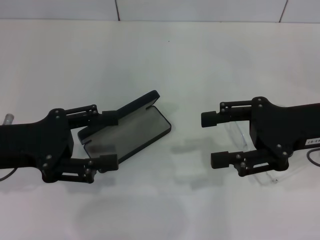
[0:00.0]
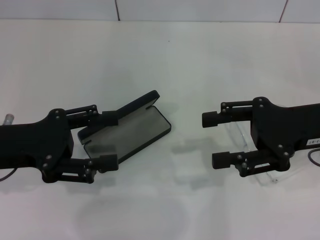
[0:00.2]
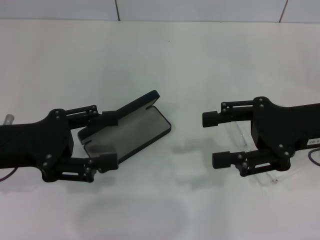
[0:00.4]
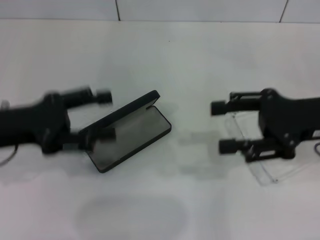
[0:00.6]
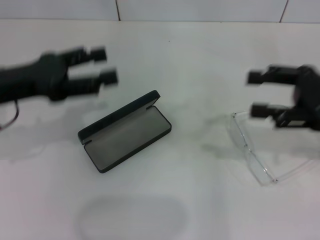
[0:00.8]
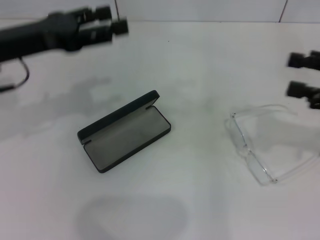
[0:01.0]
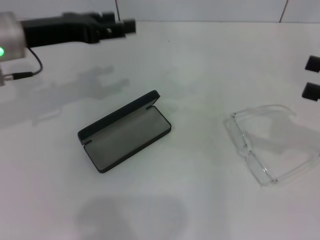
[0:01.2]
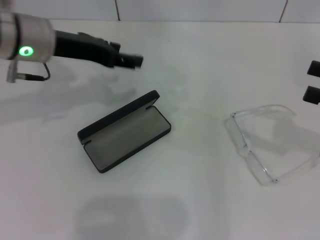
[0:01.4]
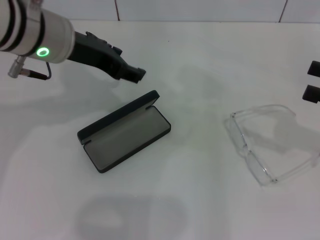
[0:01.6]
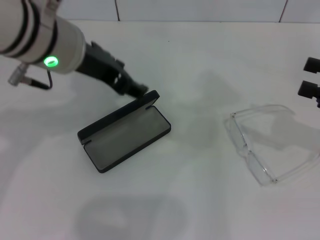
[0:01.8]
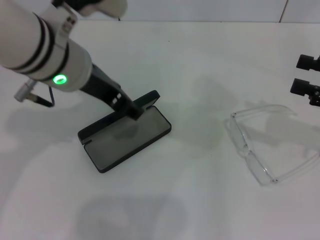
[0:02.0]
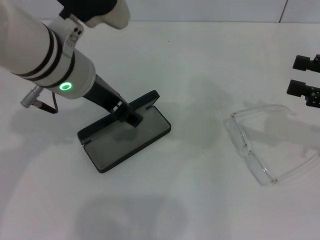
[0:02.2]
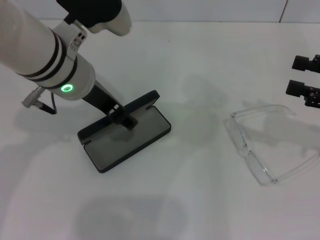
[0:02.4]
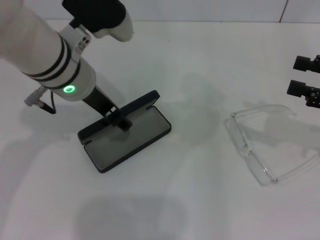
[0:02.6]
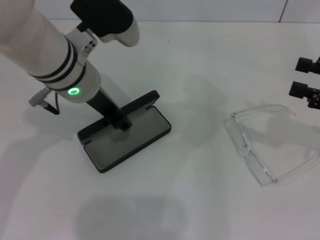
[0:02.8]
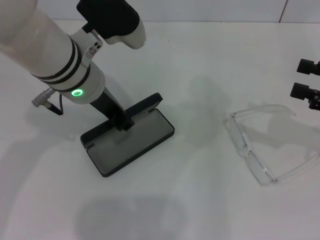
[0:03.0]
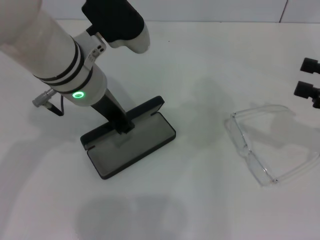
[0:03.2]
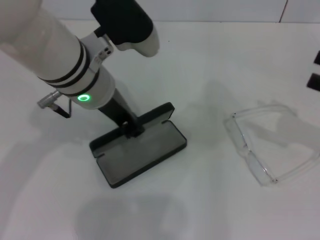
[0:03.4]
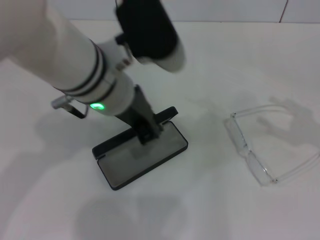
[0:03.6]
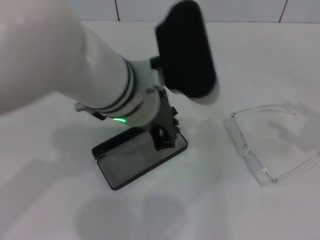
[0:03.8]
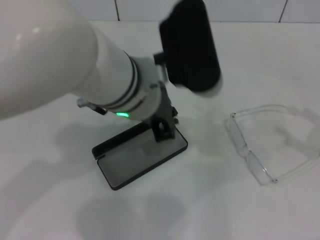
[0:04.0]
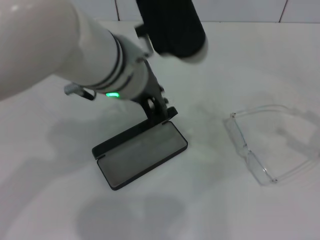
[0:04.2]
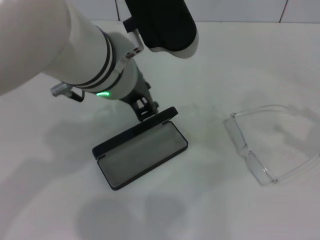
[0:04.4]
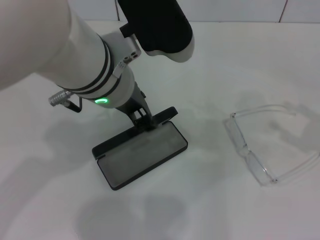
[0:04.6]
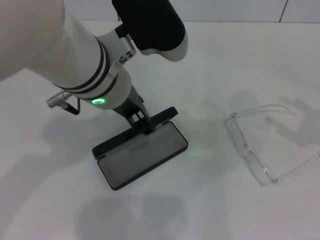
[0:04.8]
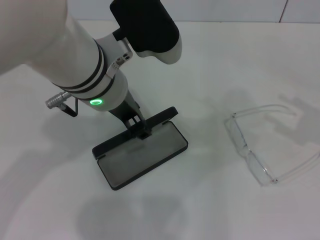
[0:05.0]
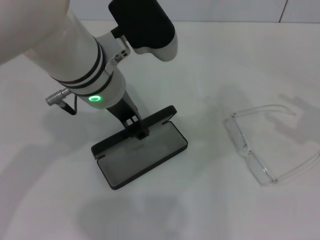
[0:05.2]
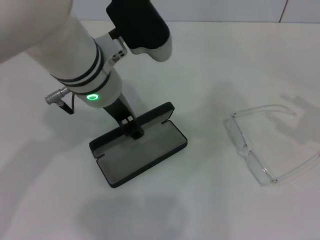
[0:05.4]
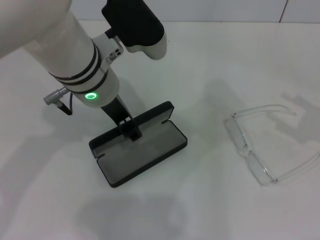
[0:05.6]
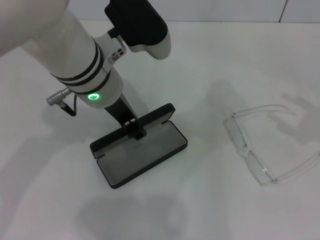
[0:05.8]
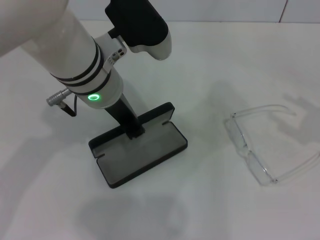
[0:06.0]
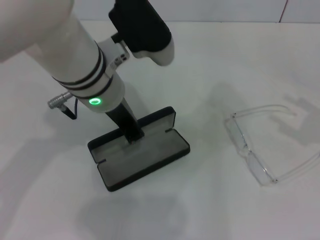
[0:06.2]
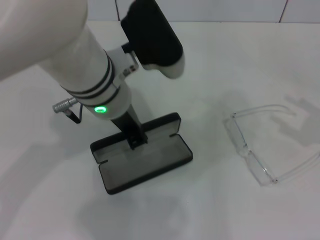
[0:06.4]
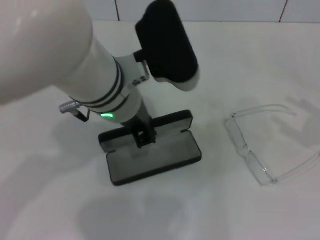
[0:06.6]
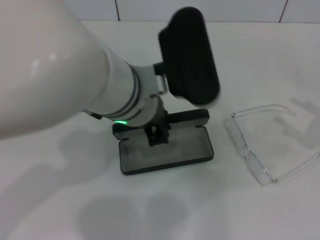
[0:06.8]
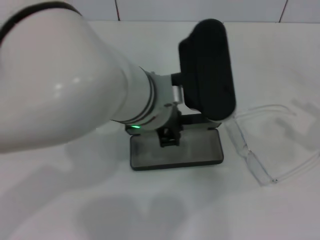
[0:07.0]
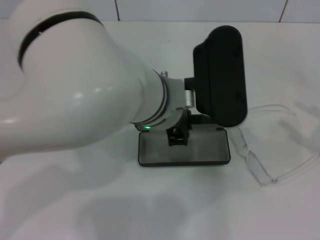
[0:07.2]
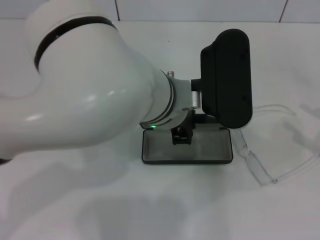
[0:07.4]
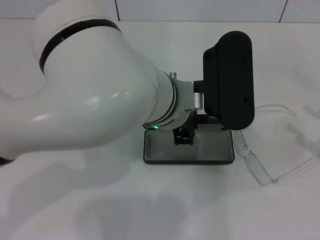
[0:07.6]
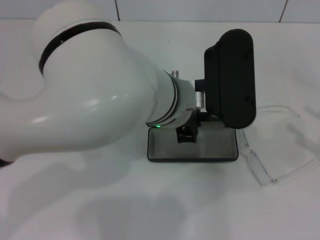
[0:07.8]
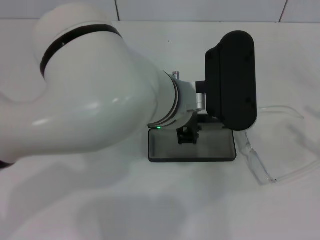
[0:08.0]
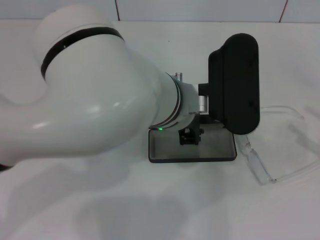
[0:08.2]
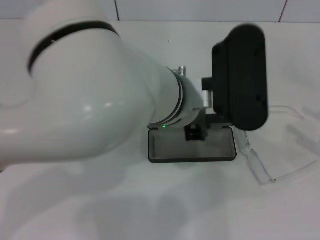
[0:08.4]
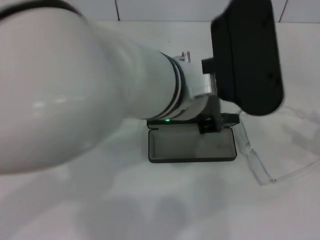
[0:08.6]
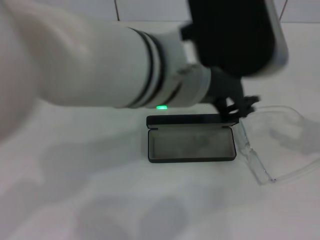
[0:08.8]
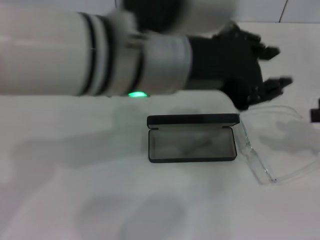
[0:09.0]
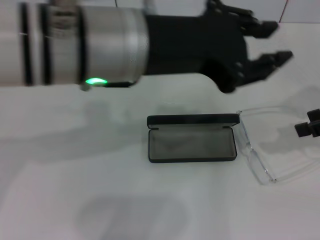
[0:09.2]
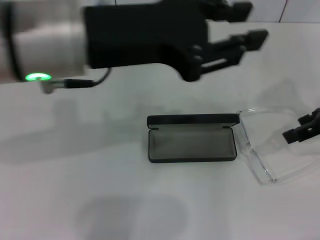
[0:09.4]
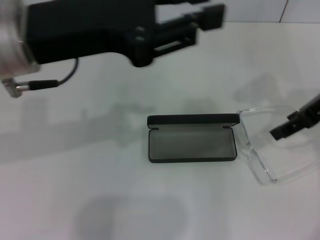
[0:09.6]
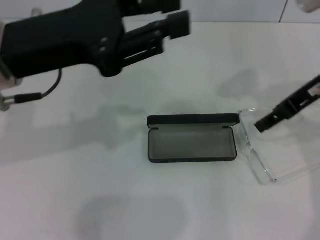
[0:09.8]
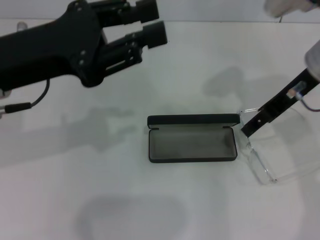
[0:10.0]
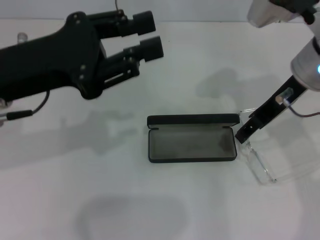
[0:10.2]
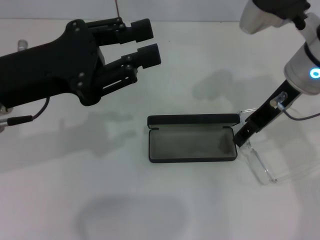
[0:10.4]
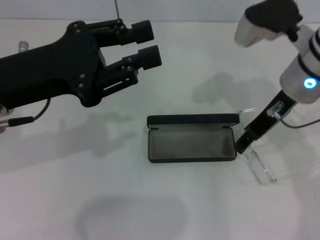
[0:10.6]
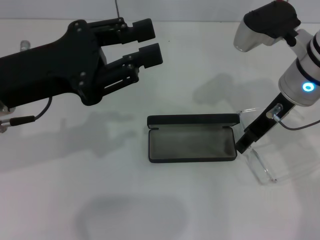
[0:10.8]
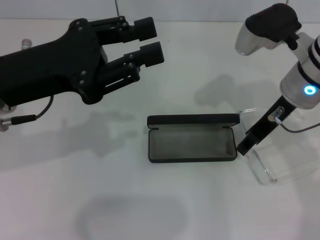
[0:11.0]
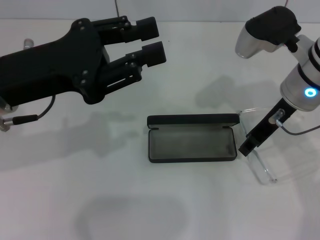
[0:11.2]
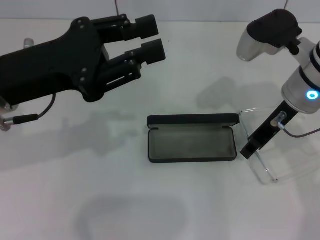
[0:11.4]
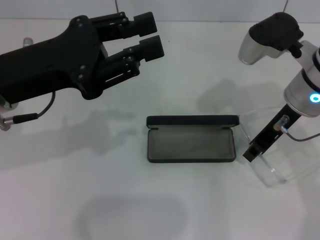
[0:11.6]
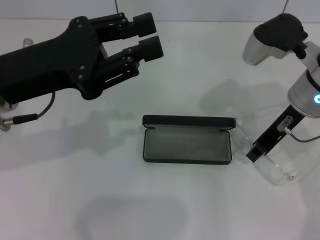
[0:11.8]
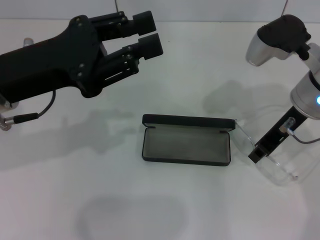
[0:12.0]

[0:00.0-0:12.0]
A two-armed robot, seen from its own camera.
Step, 0:00.0 to 0:02.8: Grab the glasses case with your left hand.
Step, 0:03.0 to 0:08.0: Place the glasses case in the center of the table with your left hand.
0:00.0 to 0:01.6: The right gripper heads to the right, covering some 10 cm, while the left gripper heads to the right, forward and upward, covering roughly 20 cm.
0:01.6 to 0:03.0: The left gripper shifts by some 5 cm.
0:03.0 to 0:04.4: The right gripper travels backward by approximately 5 cm. The left gripper shifts by some 10 cm, and closes up.
0:04.4 to 0:06.0: The left gripper shifts by some 5 cm.
0:06.0 to 0:07.6: The left gripper is displaced to the right by approximately 10 cm.
0:07.6 to 0:09.0: The left gripper is displaced upward by roughly 10 cm, while the right gripper moves forward and upward, approximately 10 cm.
0:09.0 to 0:10.4: The right gripper moves to the left and forward, some 20 cm. Meanwhile the left gripper travels to the left and downward by some 20 cm.
0:10.4 to 0:12.0: The right gripper closes its fingers.

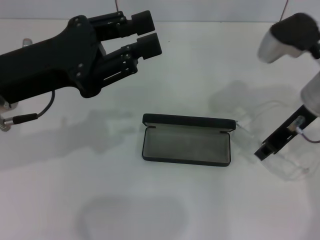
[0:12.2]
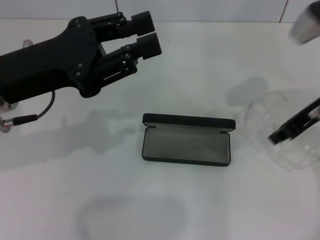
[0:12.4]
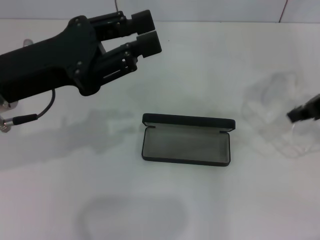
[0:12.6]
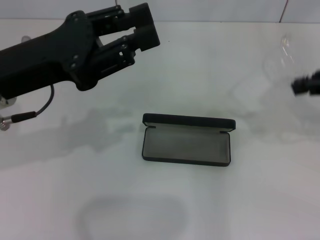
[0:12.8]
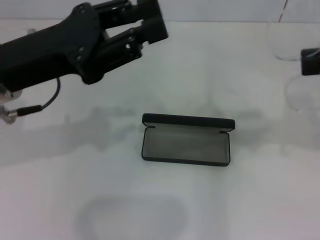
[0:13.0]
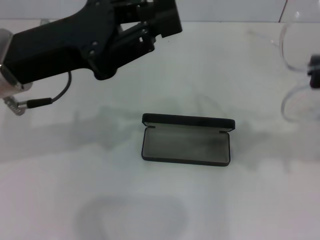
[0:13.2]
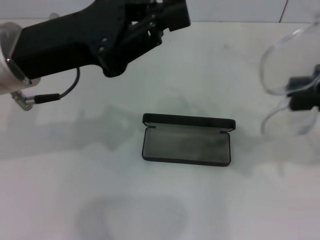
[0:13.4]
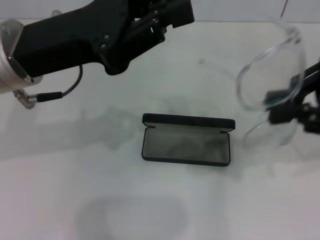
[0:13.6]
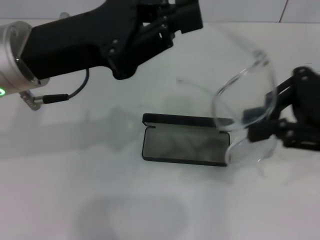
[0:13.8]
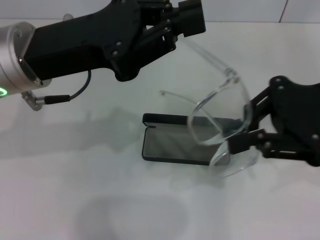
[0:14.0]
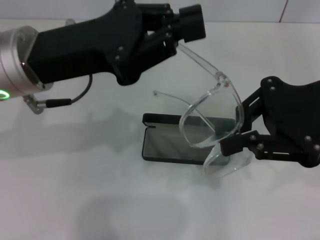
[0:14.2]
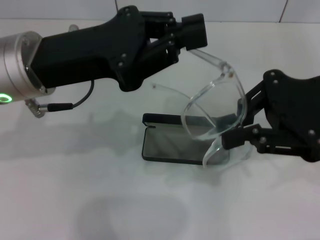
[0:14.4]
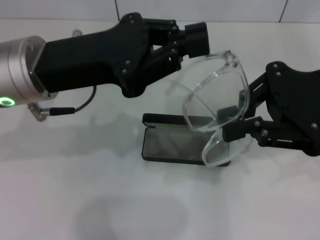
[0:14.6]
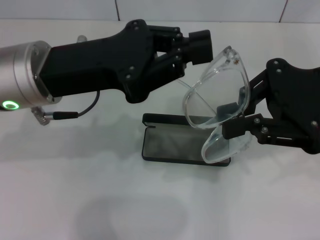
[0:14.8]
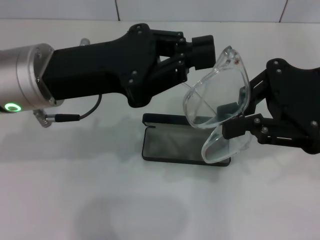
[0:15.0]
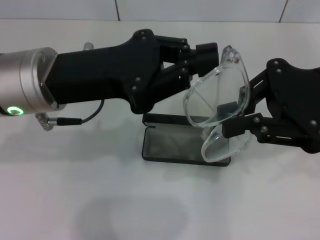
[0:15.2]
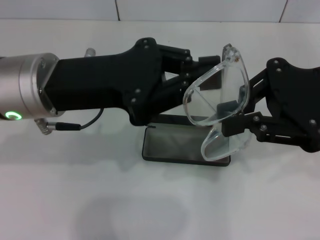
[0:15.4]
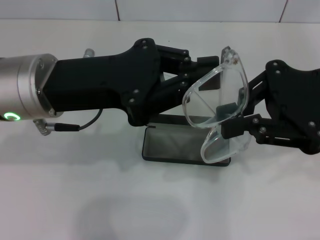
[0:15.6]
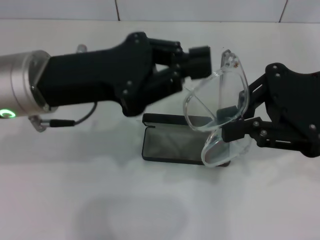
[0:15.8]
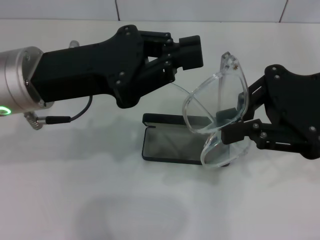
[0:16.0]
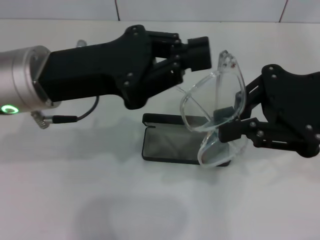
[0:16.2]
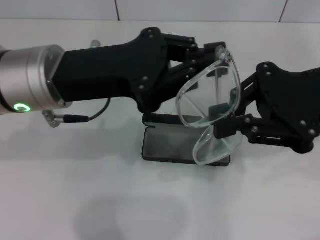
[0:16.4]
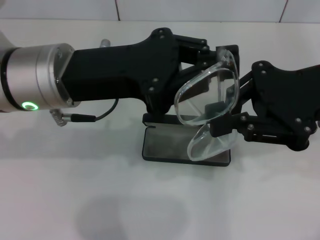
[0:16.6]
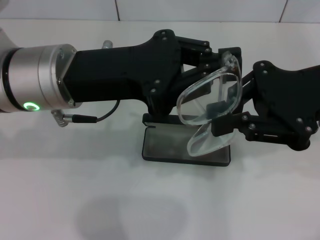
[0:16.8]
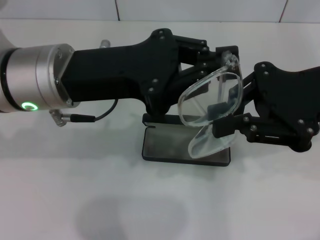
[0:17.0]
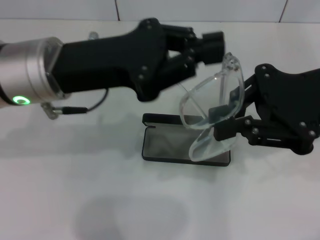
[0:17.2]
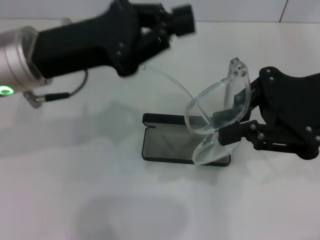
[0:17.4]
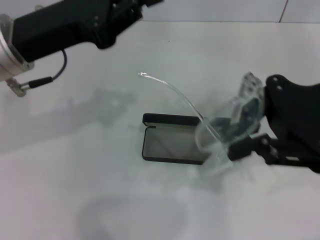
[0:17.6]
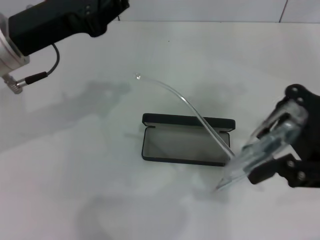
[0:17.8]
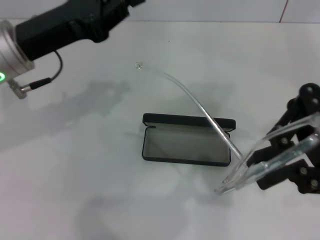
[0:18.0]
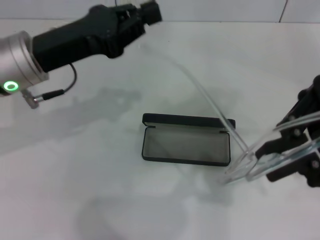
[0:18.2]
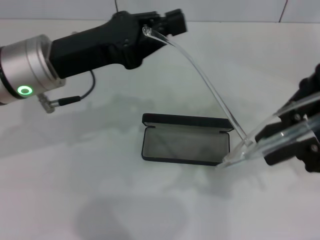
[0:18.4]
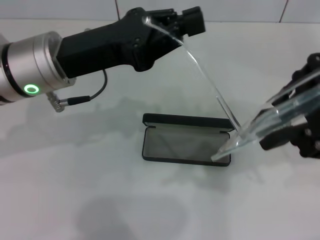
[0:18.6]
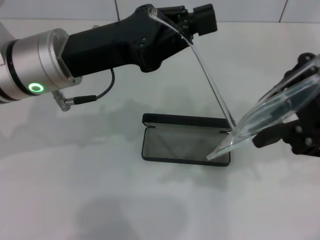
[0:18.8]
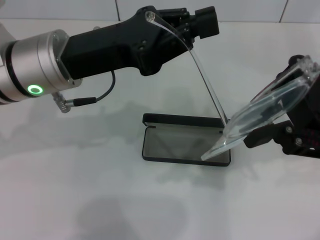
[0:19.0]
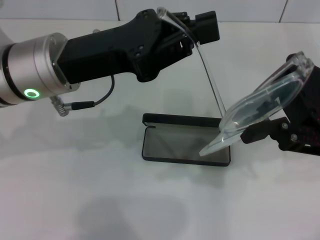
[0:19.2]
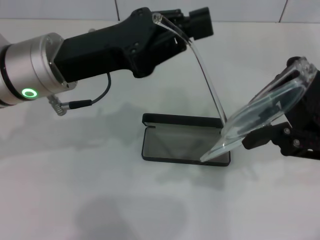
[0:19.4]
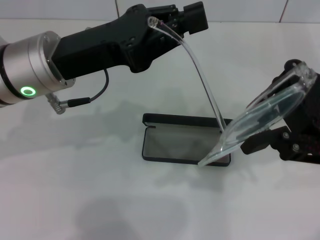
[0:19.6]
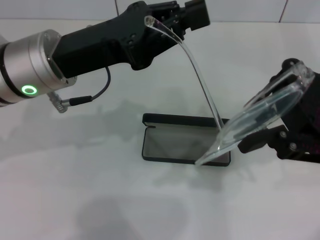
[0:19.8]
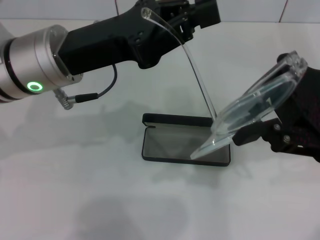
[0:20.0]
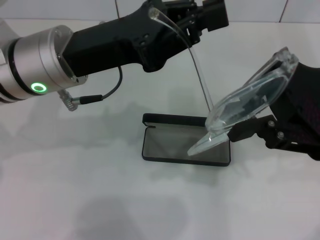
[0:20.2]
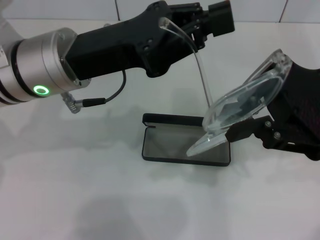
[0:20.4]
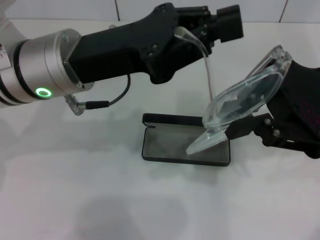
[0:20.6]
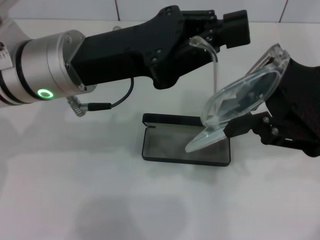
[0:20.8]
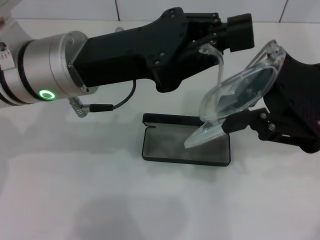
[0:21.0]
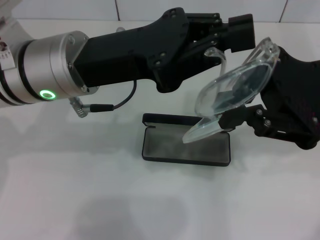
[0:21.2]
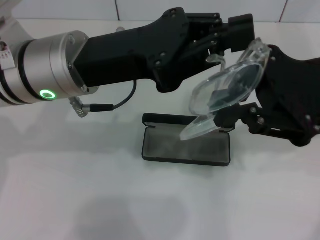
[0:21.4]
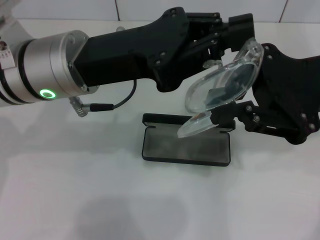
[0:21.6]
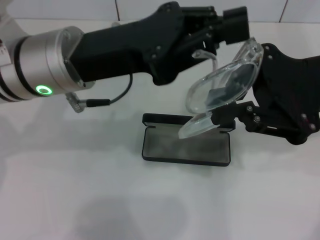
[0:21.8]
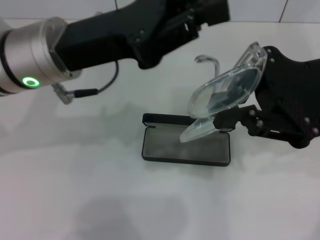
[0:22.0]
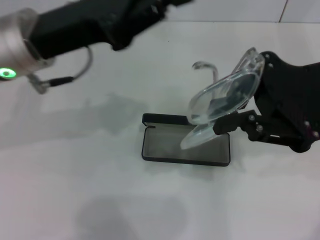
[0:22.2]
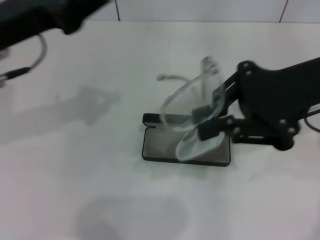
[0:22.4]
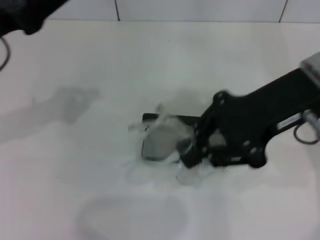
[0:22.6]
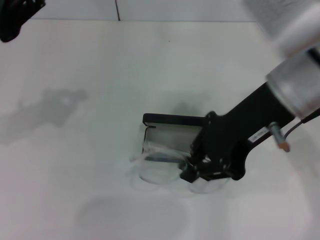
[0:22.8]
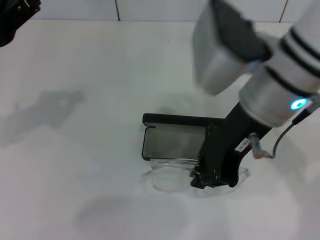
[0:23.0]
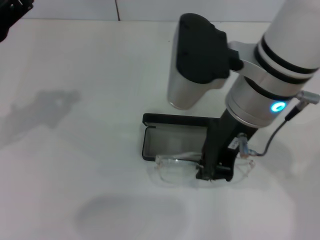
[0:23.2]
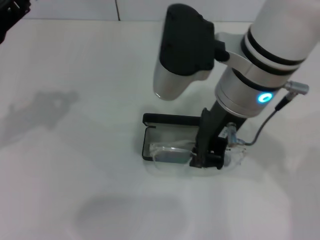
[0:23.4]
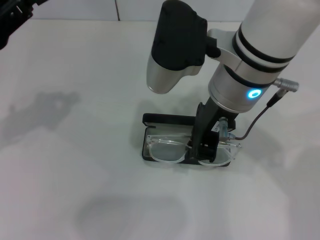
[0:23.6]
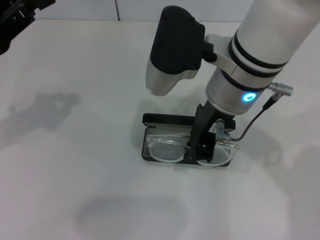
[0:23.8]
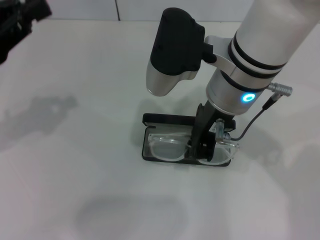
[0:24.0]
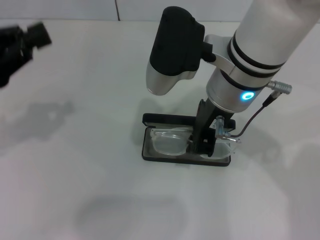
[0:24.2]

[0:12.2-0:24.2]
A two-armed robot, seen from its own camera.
Step, 0:12.4 to 0:21.8: Fold the frame with your left hand.
0:12.2 to 0:13.8: The right gripper travels backward, upward and to the right by some 10 cm. The left gripper closes.
0:15.2 to 0:16.6: The grippers move only a little.
0:16.6 to 0:18.2: The left gripper heads to the left, covering about 5 cm.
0:21.2 to 0:22.6: The left gripper is displaced to the left by some 15 cm.
0:22.6 to 0:24.2: The left gripper moves about 5 cm. The right gripper shifts some 10 cm to the left.
